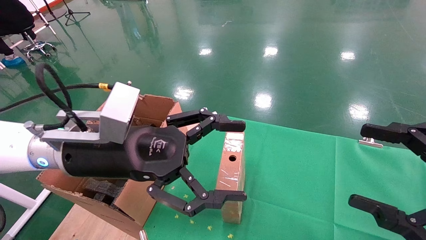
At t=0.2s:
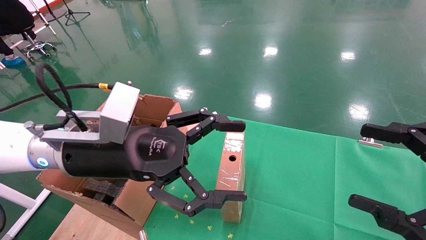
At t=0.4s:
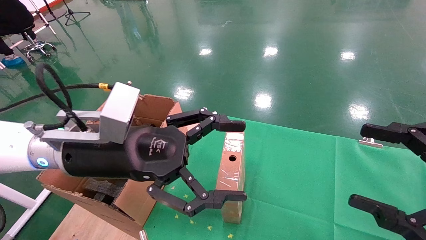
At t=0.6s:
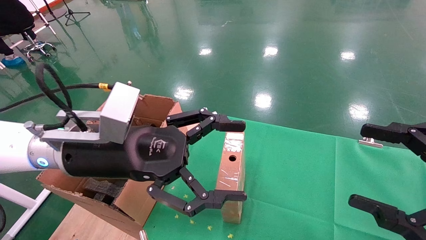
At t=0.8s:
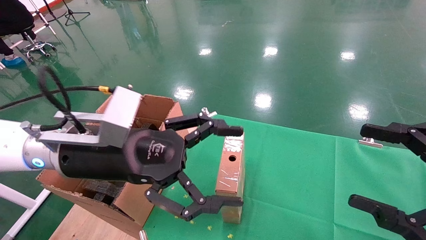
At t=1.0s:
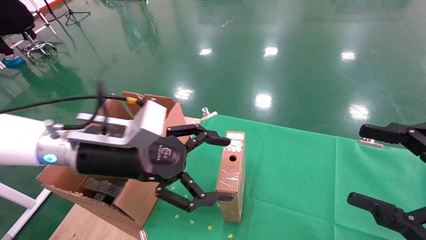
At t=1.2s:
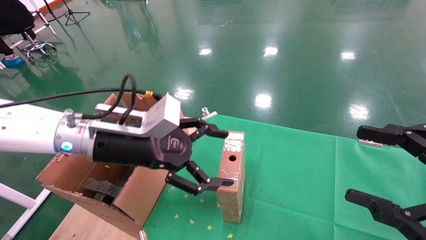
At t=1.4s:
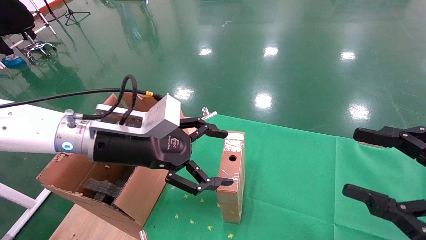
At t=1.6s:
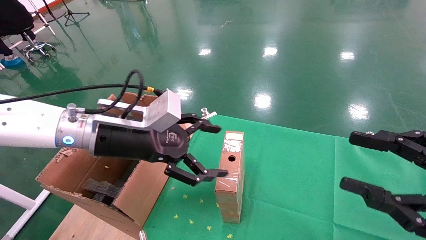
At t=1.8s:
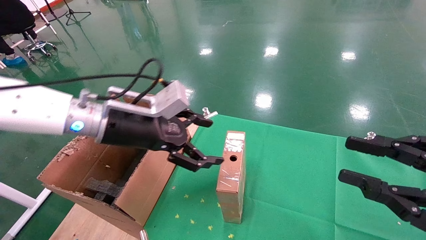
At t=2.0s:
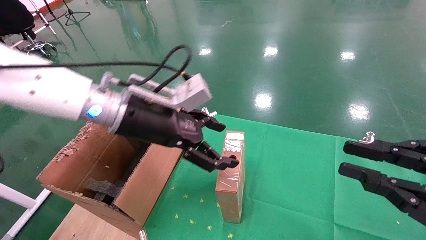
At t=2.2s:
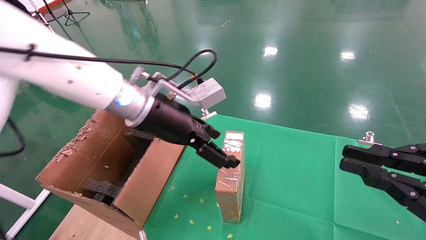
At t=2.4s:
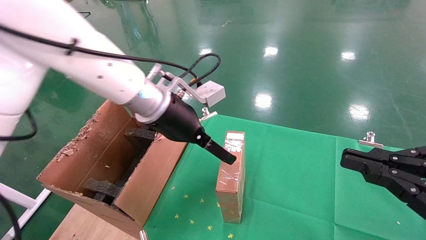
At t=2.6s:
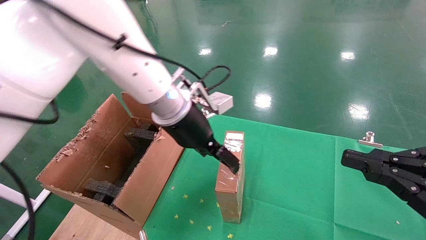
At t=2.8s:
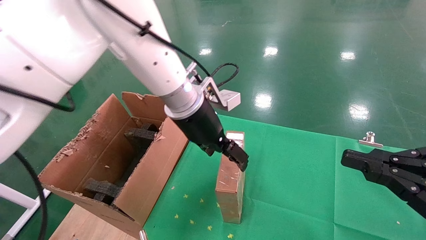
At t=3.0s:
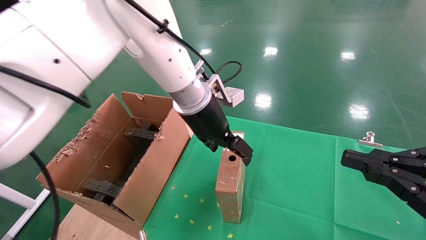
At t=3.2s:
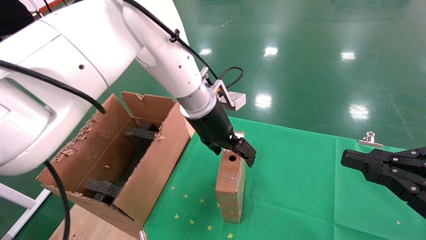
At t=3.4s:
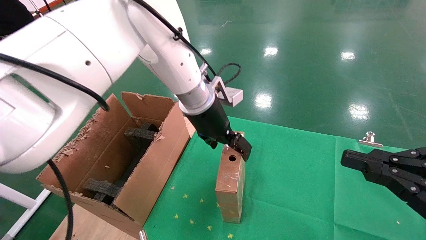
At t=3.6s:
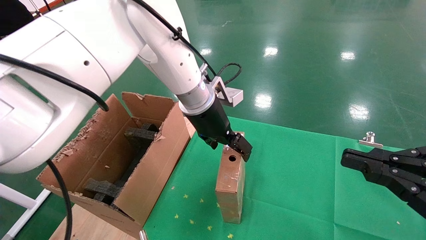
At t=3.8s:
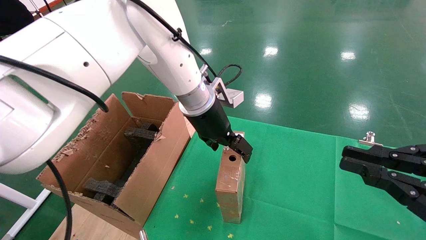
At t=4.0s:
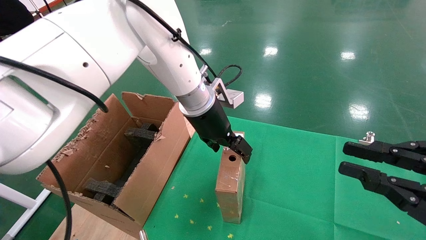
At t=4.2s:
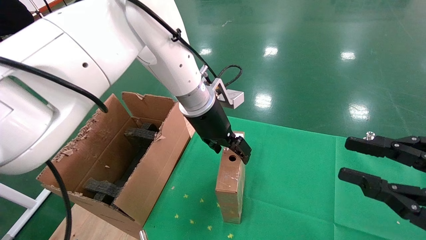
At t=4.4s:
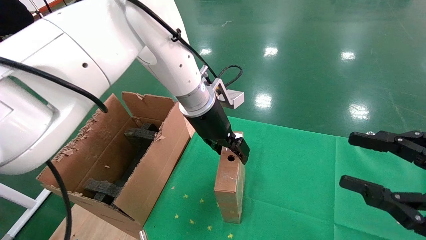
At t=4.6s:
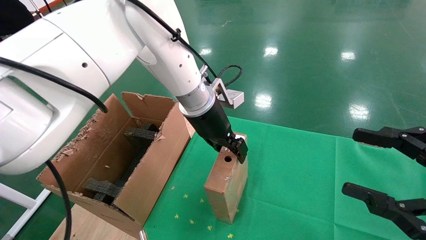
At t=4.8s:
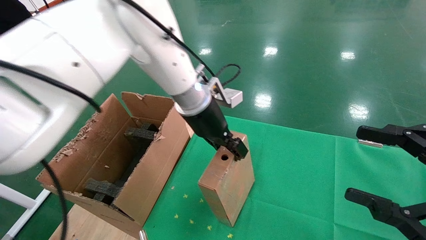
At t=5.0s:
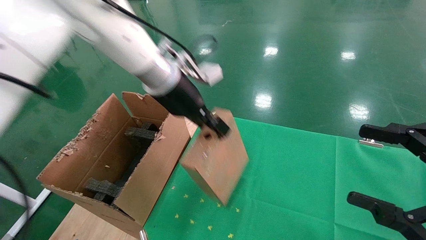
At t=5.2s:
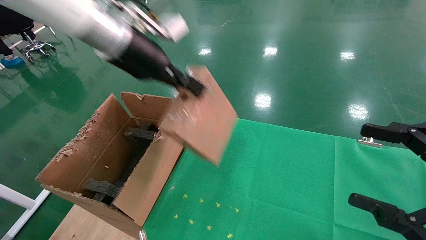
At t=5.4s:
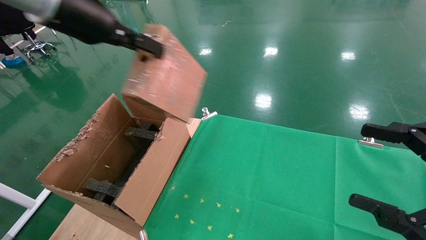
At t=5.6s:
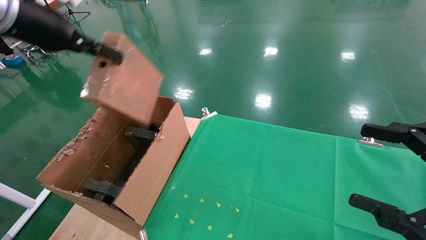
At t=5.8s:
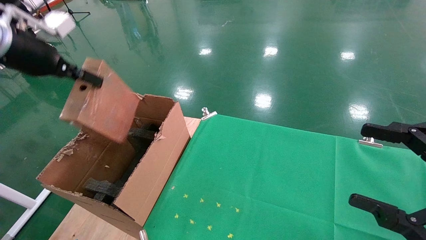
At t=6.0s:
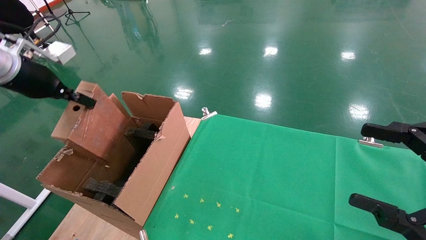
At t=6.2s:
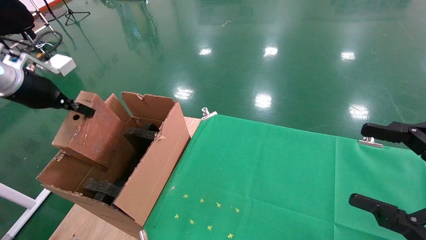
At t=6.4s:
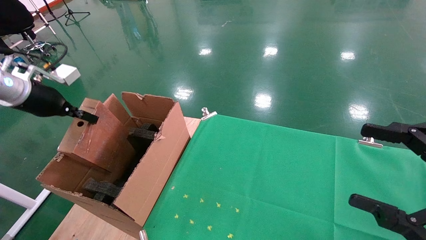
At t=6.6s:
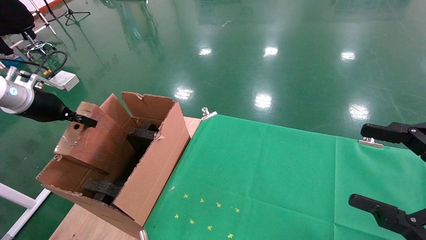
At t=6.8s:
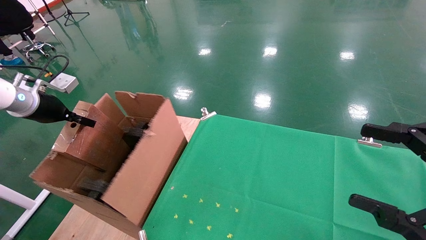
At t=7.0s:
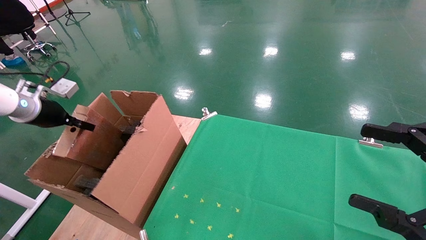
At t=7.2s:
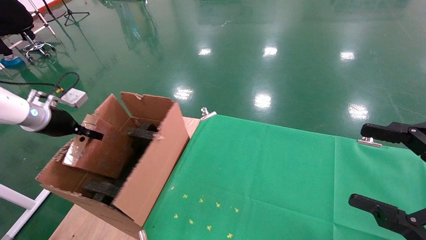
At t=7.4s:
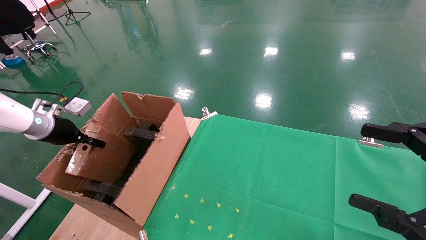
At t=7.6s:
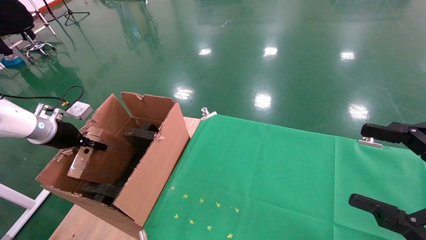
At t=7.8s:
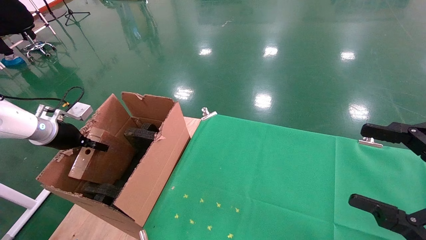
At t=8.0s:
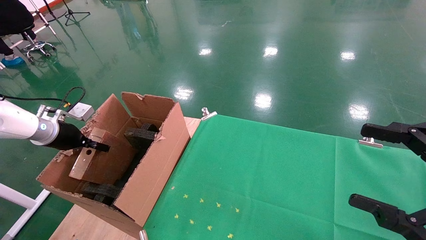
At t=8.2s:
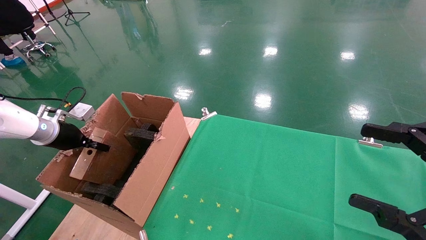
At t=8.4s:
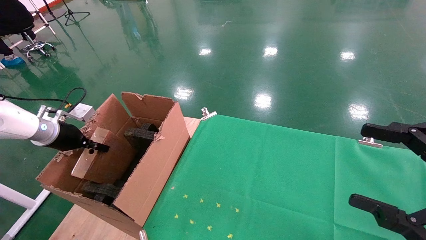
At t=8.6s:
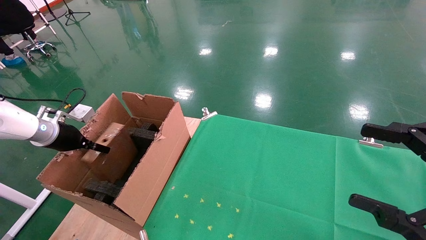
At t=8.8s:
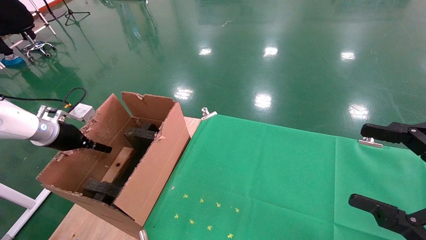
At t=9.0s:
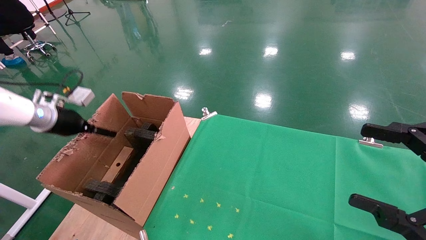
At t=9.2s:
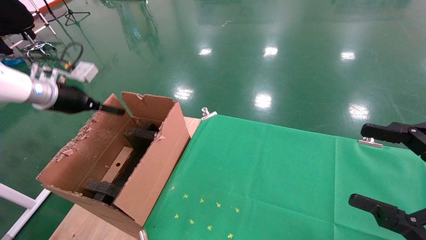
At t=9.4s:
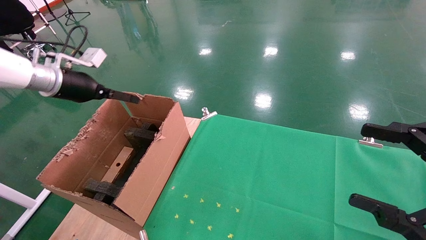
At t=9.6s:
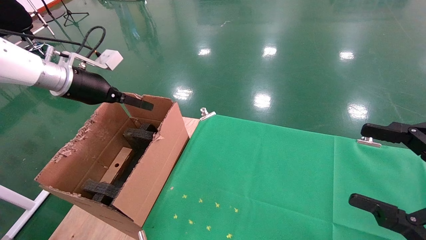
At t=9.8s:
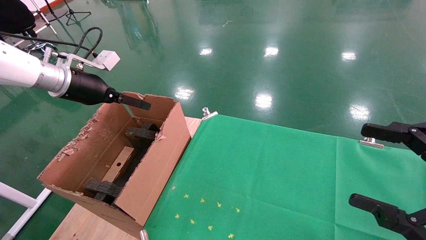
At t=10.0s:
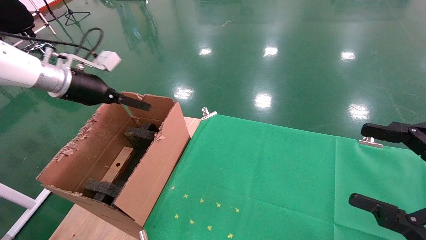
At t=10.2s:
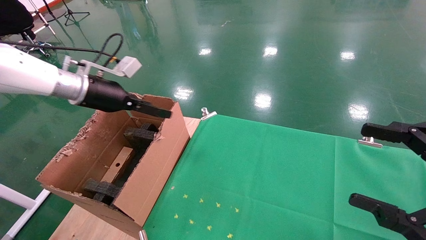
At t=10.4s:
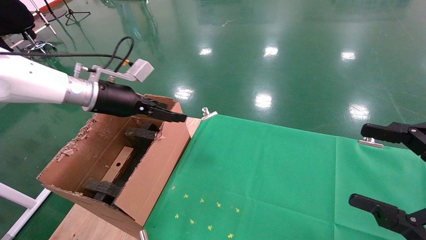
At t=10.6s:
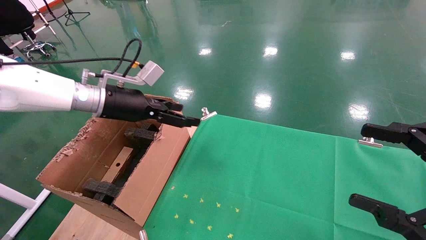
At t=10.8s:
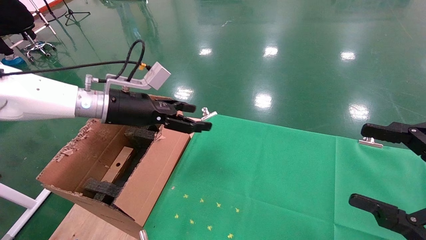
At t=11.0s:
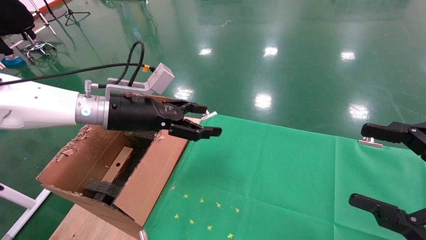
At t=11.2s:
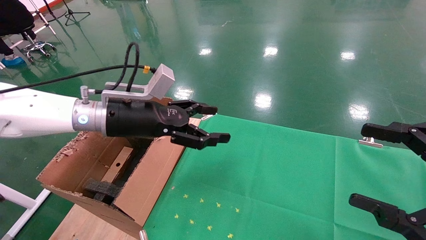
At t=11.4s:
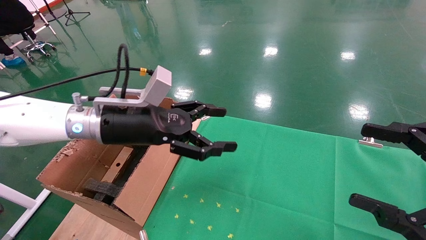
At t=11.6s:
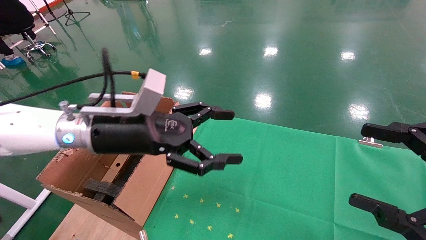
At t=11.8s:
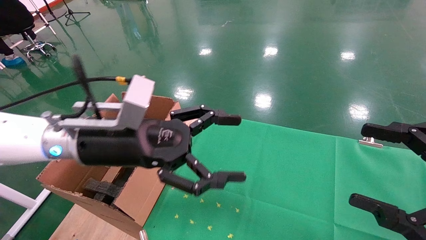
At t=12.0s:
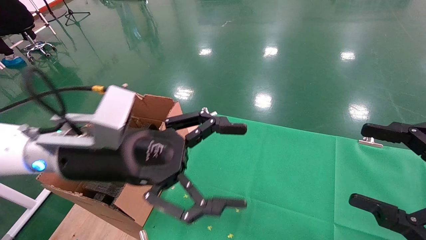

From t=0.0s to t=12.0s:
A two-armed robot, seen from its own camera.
Task of the whole recording: using a robotic arm to pick up a cardboard box and palace it the carton.
Step, from t=1.0s to t=4.6s: Pick up the mouse and the power cord paper box.
Step, from t=4.8s to t=8.6s: Place the mouse and the power cord paper box into the container.
From t=0.0s to t=1.6s: The left gripper heads forward, covering some 5 cm.
From t=1.6s to t=3.0s: The right gripper closes, while the left gripper shifts roughly 15 cm to the right and forward.
From t=3.0s to t=4.4s: The right gripper opens up.
From t=4.4s to t=6.0s: The left gripper moves to the left, roughly 35 cm, and closes up; the right gripper opens.
From t=6.0s to t=7.6s: The left gripper shifts approximately 15 cm downward.
From t=7.6s to t=9.0s: The left gripper moves roughly 5 cm, and opens up.
From t=9.0s to t=10.4s: The left gripper moves to the right, roughly 15 cm.
From t=10.4s to t=12.0s: The left gripper moves backward and to the right, about 20 cm.

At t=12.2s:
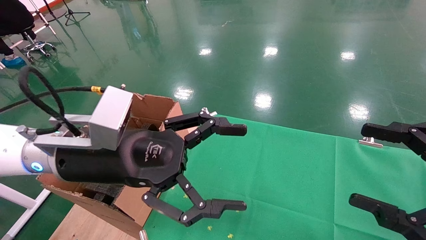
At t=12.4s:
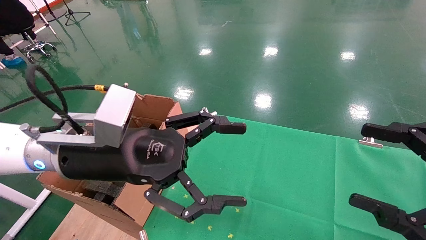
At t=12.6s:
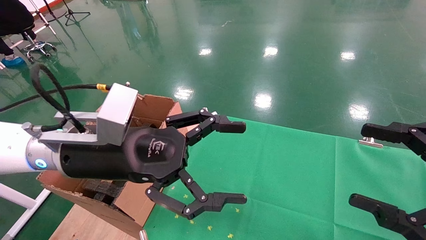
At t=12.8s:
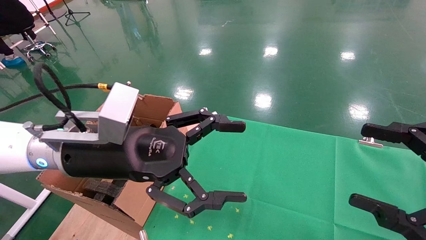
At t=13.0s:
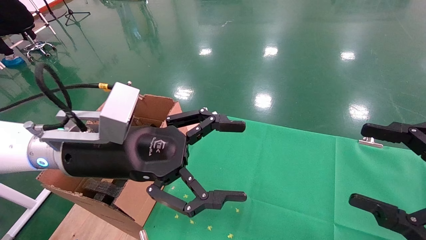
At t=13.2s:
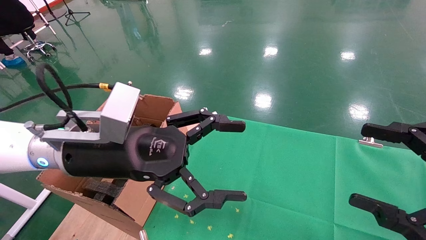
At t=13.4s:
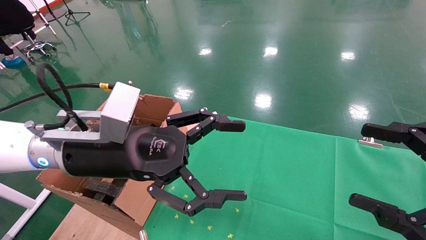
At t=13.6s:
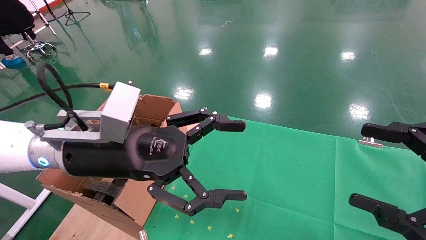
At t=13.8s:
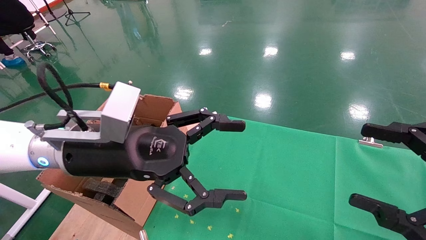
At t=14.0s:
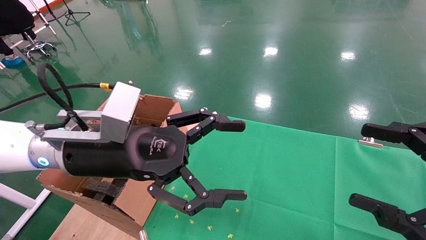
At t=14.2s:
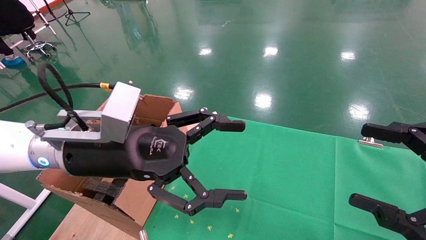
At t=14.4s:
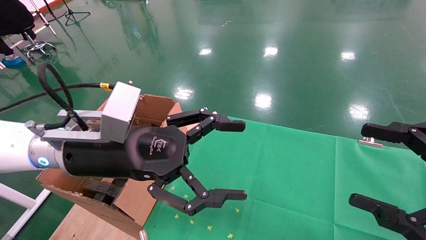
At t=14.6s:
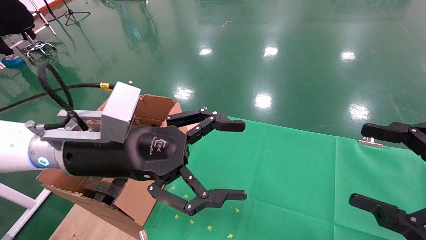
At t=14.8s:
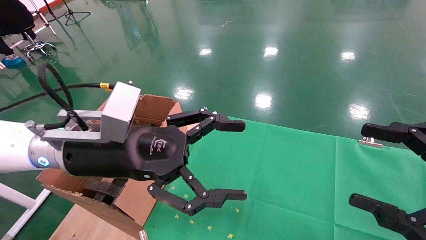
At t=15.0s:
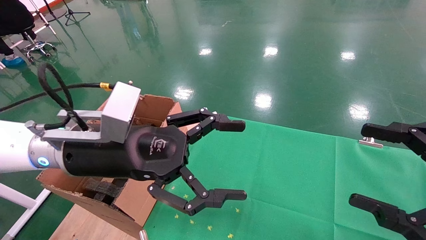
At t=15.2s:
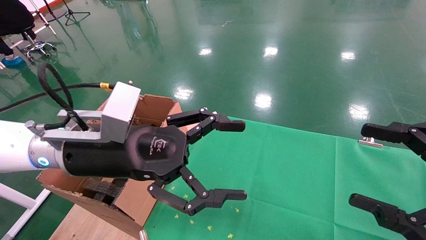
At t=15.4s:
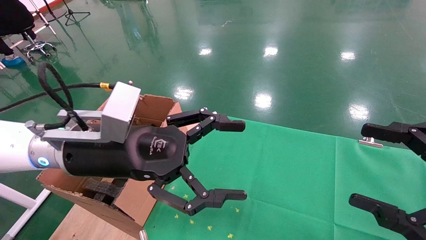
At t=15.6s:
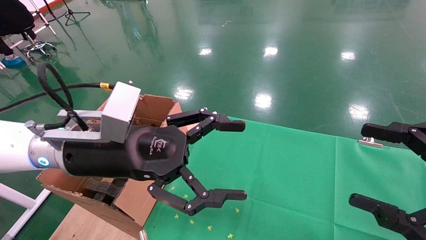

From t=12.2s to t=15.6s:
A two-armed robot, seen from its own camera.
Task of the whole recording: using a robotic arm to pick up a cardboard box and palace it the carton.
From t=12.2s to t=15.6s: Both grippers stay put.
